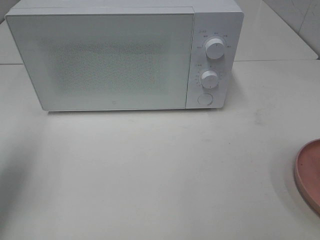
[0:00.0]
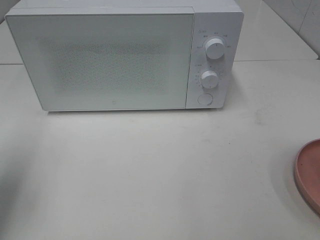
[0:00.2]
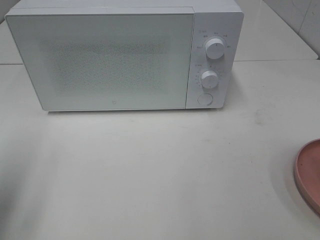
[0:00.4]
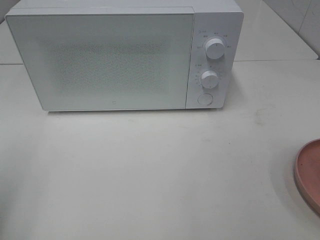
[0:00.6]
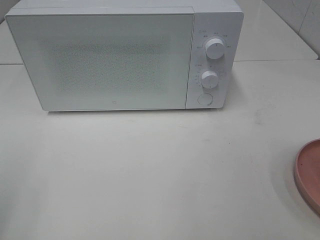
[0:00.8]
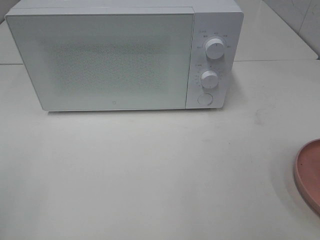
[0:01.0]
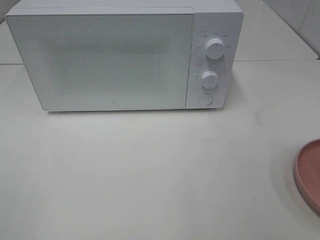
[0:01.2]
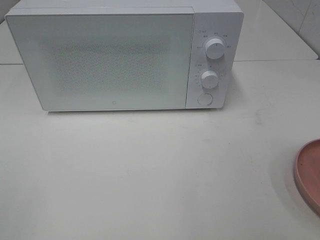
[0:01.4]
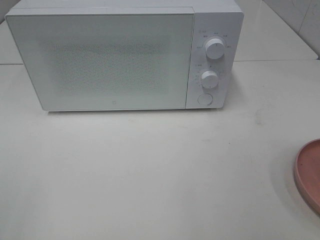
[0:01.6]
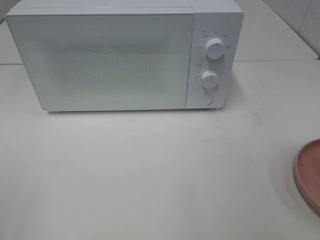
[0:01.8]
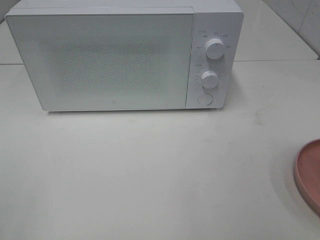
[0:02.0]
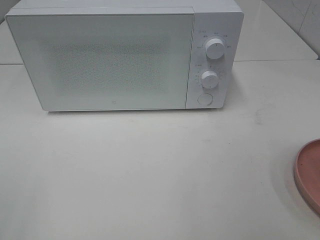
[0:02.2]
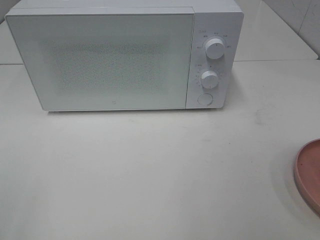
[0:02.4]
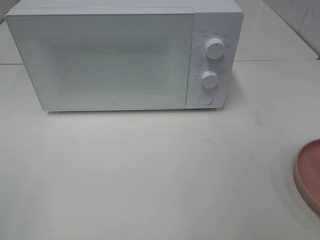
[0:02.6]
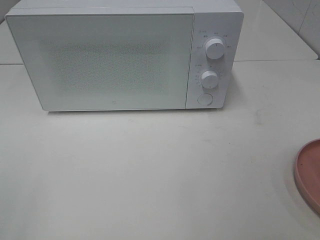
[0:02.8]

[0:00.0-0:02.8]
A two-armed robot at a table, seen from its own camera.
Task of the whole recording: Heat the burger.
0:00.0 to 0:01.4: The left gripper is displaced backward by roughly 20 cm, and opens up.

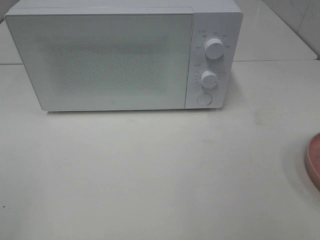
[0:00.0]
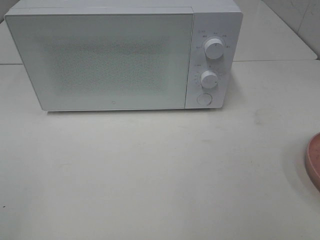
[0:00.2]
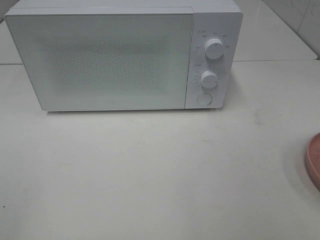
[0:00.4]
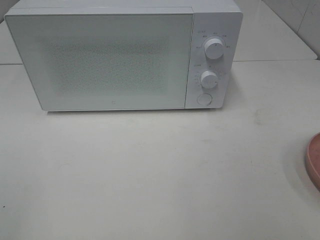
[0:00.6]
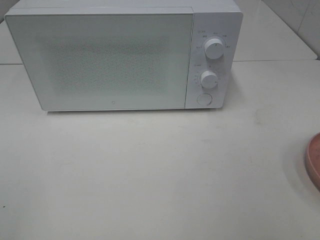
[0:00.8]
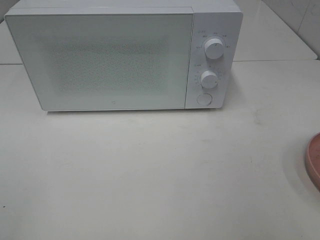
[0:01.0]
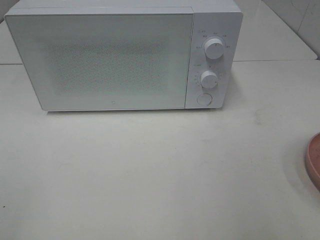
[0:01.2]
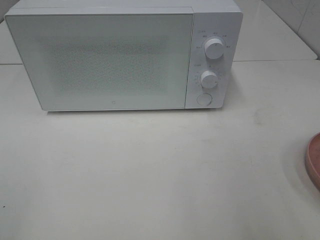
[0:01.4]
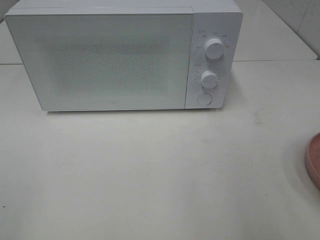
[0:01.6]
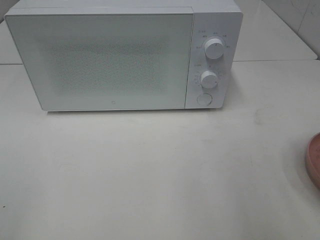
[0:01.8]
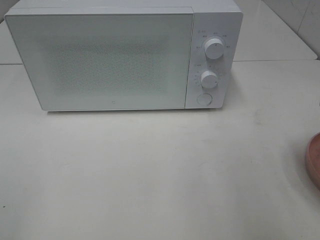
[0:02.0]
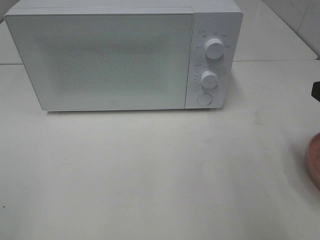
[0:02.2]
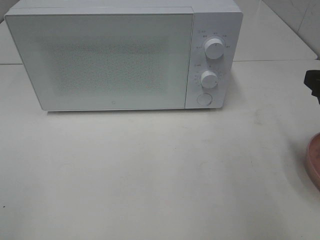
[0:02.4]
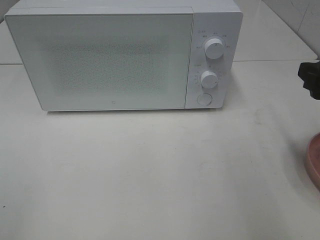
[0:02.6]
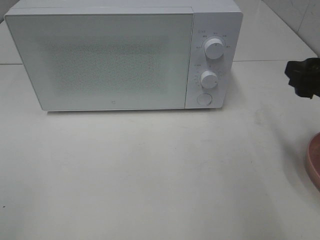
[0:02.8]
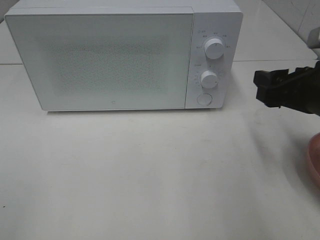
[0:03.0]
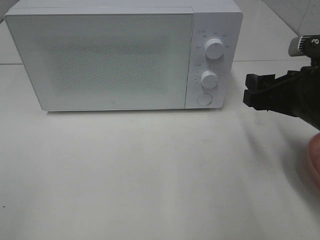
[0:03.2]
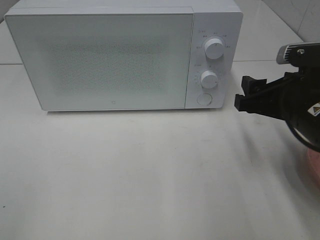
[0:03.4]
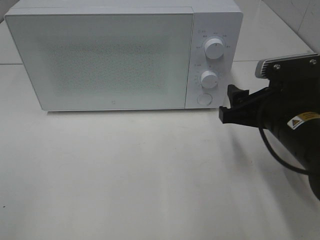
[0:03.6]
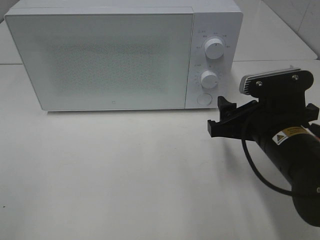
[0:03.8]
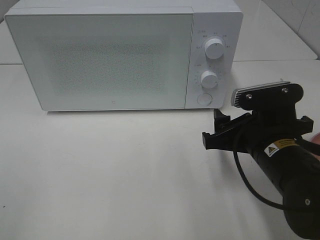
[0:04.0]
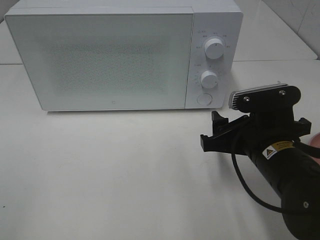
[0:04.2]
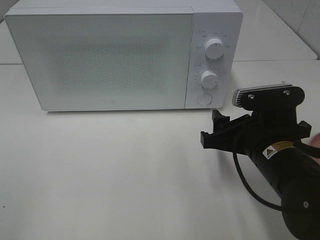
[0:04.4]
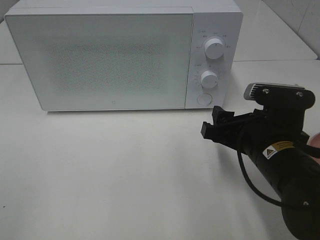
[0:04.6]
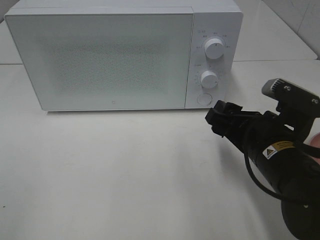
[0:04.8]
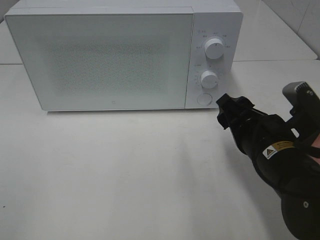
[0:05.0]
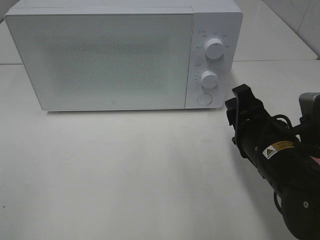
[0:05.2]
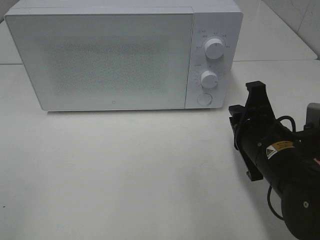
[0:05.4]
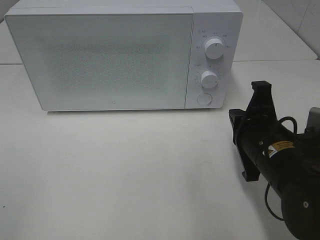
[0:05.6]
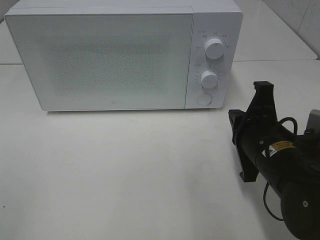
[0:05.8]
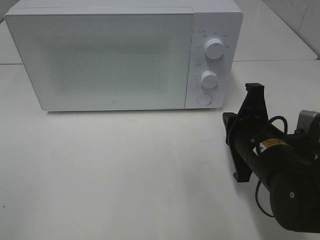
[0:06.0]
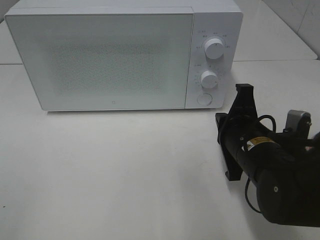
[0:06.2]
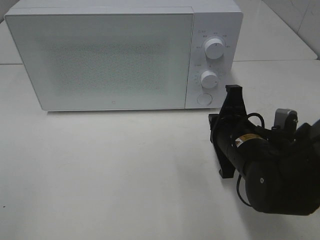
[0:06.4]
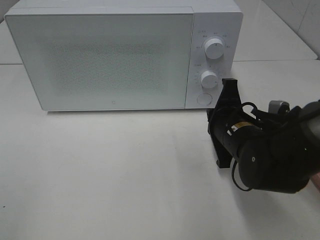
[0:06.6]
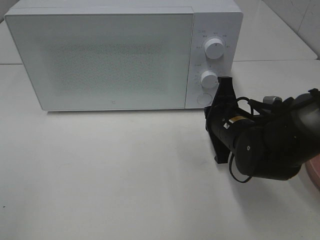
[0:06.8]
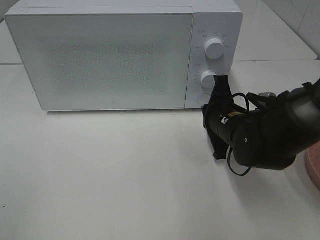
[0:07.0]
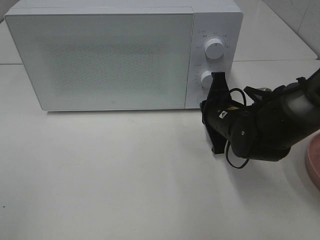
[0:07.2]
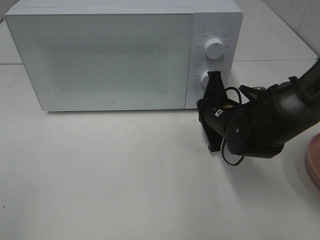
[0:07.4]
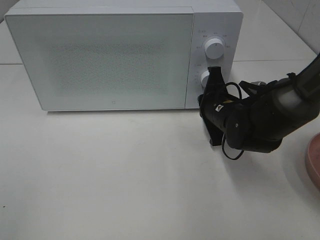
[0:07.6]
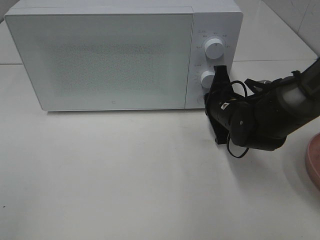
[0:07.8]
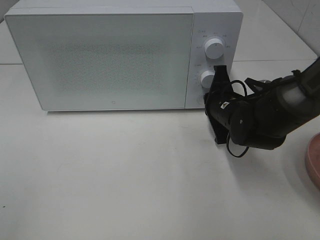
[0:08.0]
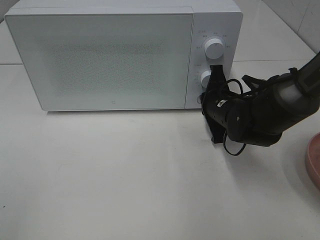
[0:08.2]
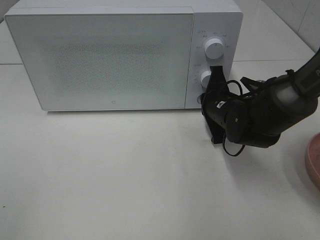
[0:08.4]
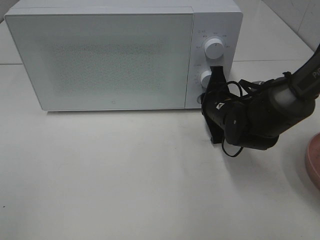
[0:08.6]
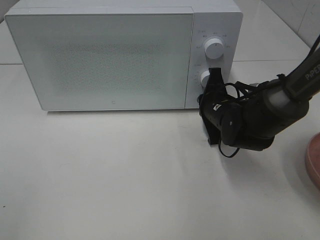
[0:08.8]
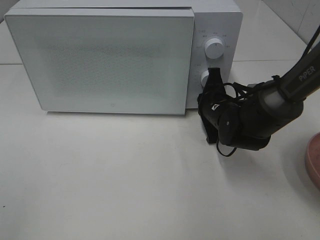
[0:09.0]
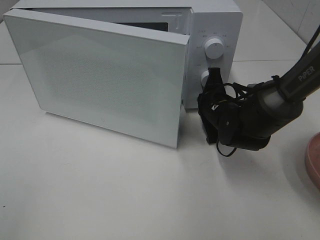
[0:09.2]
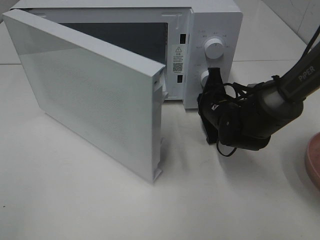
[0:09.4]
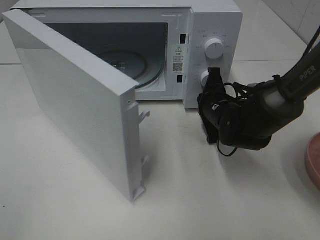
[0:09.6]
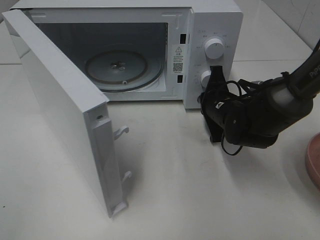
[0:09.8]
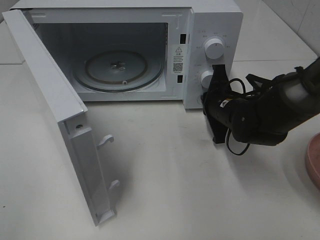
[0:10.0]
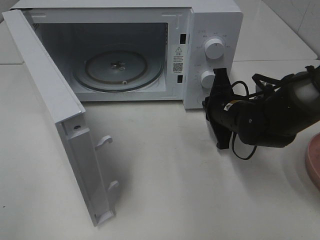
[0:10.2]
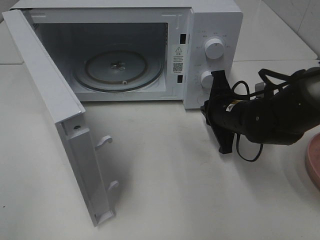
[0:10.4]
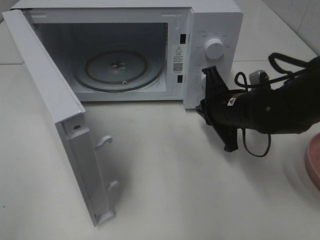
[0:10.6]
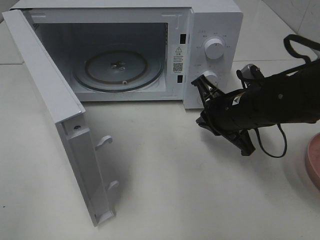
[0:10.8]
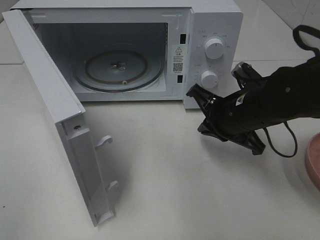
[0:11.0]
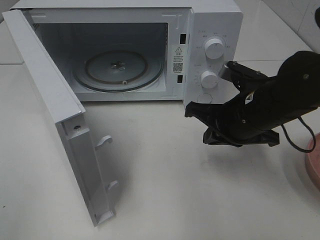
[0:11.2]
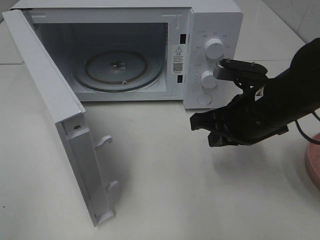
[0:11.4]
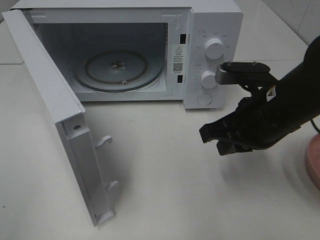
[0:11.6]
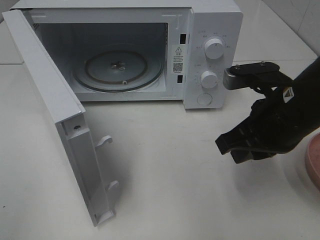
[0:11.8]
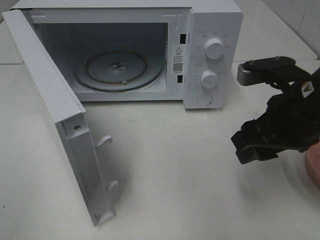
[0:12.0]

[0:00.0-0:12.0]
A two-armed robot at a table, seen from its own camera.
Task of the whole recording: Heat the burger.
Step, 0:00.0 to 0:10.2: Right hand: press the switch.
0:01.6 to 0:03.0: The right gripper goes roughly 10 cm forward and downward.
0:03.0 to 0:04.4: The right gripper goes about 10 cm to the left and downward.
0:04.4 to 0:06.0: The right gripper closes.
0:06.0 to 0:07.6: The right gripper goes approximately 10 cm forward.
0:07.6 to 0:09.0: The grippers stay close to where they were, moving slightly.
0:10.4 to 0:12.0: The right gripper goes approximately 15 cm upward and backward, and opens up.

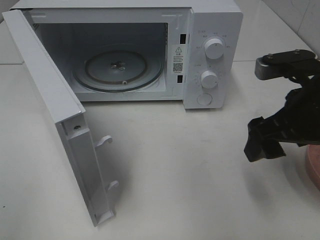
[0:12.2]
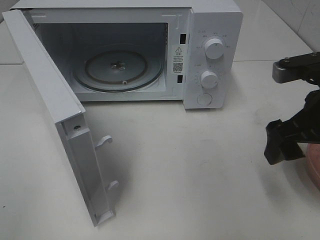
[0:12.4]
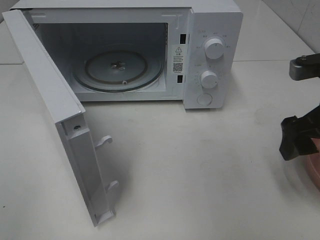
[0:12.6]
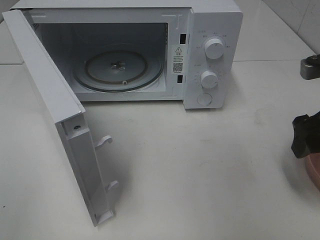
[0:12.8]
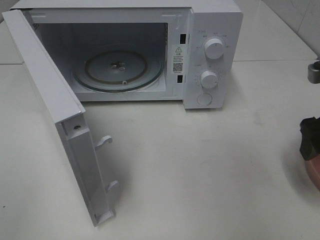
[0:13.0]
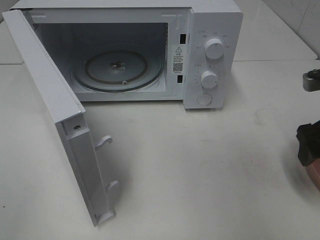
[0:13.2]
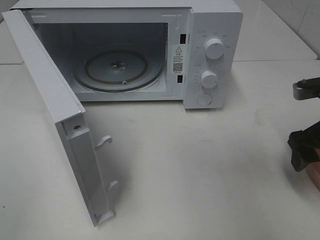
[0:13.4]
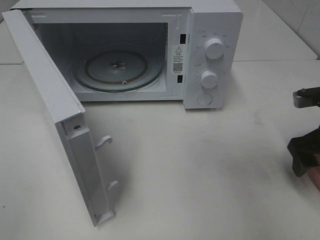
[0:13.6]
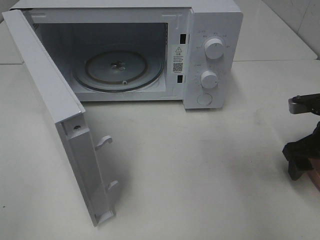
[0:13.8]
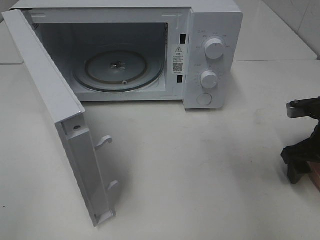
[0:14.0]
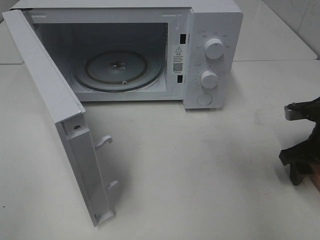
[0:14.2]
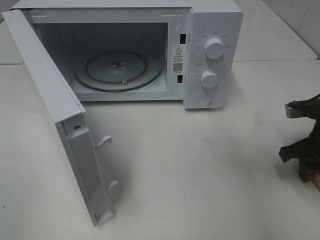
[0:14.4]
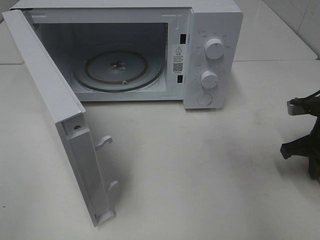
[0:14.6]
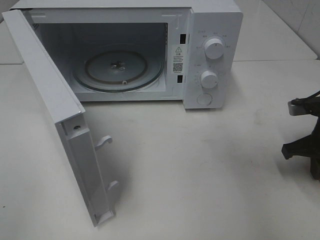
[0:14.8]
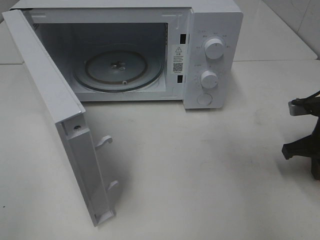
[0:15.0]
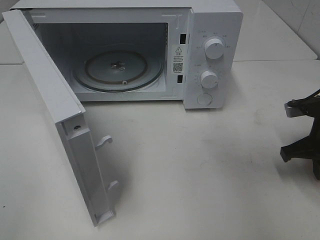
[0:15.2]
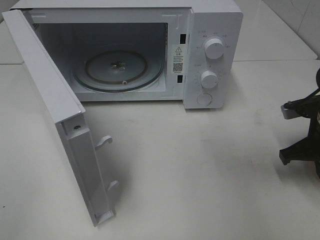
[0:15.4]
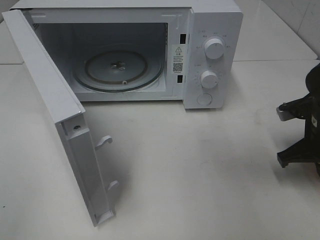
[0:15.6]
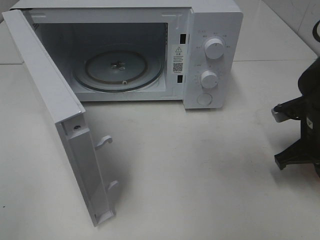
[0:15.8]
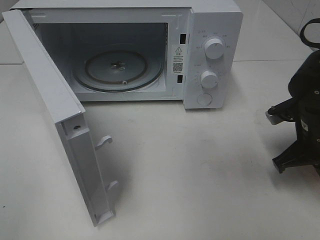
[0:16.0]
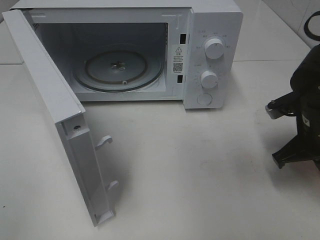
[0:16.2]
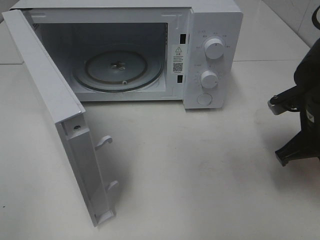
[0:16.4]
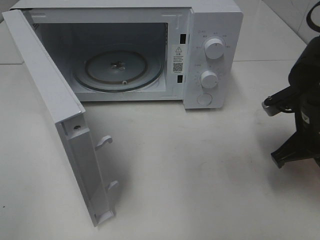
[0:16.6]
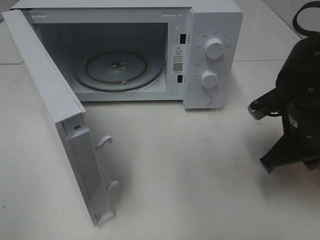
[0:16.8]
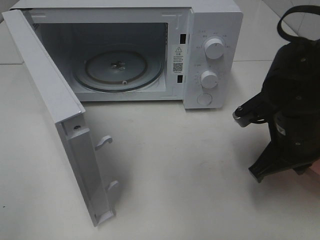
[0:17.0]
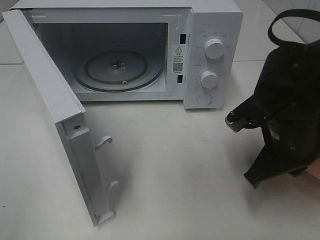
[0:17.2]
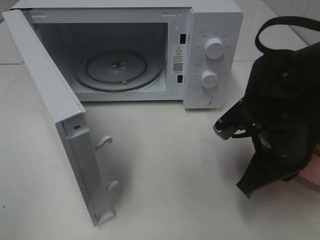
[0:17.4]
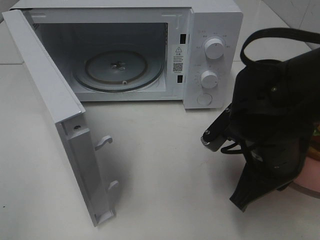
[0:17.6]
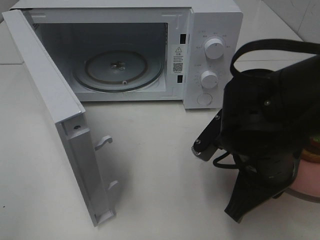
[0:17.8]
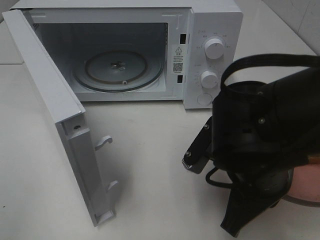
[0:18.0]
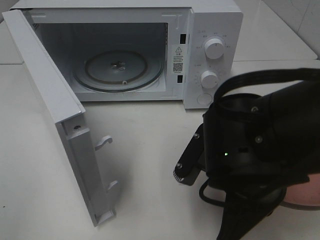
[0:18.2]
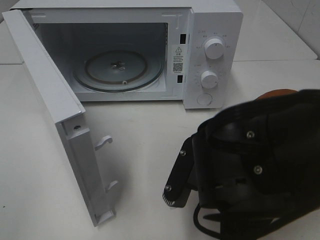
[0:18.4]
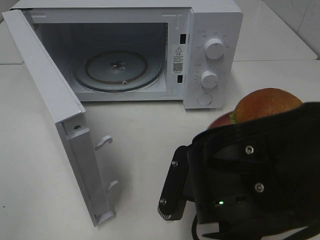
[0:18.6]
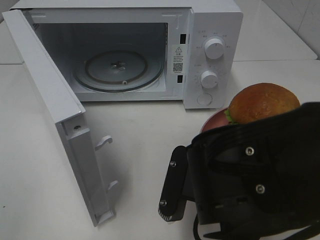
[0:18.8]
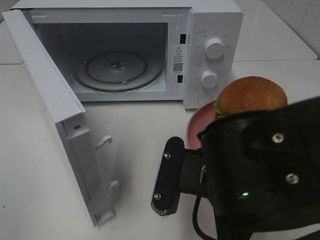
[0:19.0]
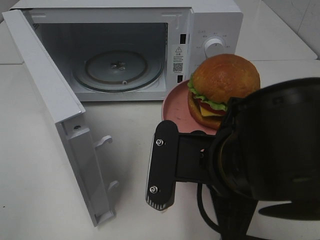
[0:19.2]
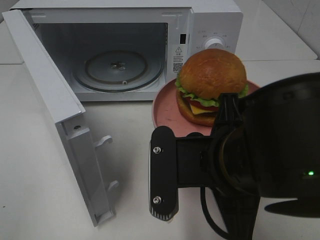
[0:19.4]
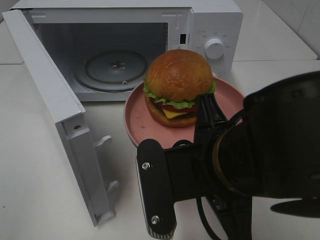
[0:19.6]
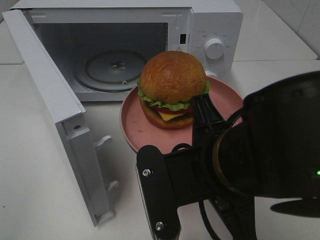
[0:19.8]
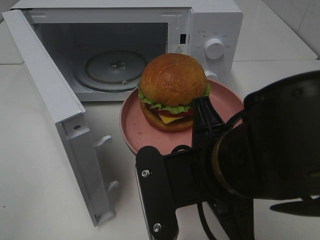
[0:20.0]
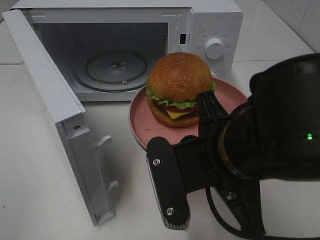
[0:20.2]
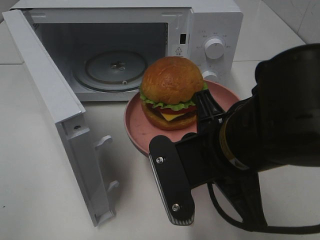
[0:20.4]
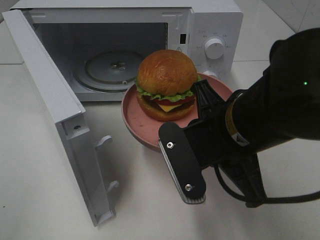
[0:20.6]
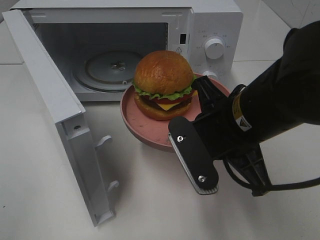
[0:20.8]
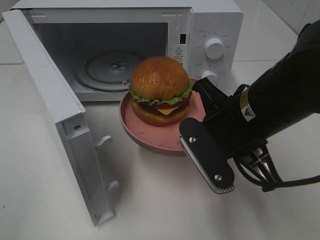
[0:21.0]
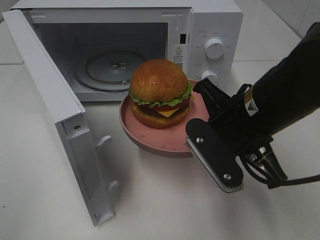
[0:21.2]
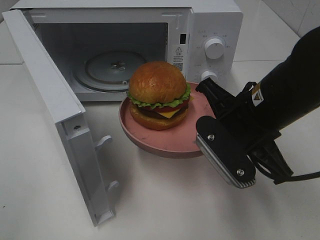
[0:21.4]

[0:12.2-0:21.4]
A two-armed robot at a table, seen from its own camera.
Task of the whole recording: Heat the burger.
Step, 0:12.2 to 0:15.2: Right hand: grab the plate with the hamburger.
0:12.2 to 0:13.8: The right gripper is displaced to the right, downward and forward by about 15 cm.
0:13.8 to 0:15.2: The right gripper closes.
0:15.2 to 0:16.8: The right gripper is displaced to the left by roughly 10 cm.
0:16.8 to 0:18.4: The right gripper travels to the left and backward by approximately 15 cm.
0:18.4 to 0:19.8: The right gripper moves upward, roughly 5 cm.
0:19.8 to 0:21.4: The right gripper shifts some 10 cm forward and to the right.
